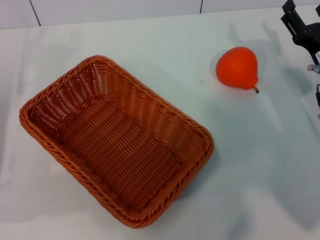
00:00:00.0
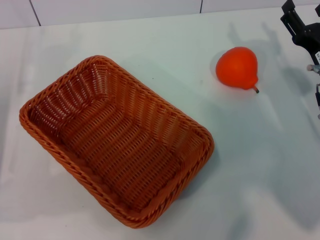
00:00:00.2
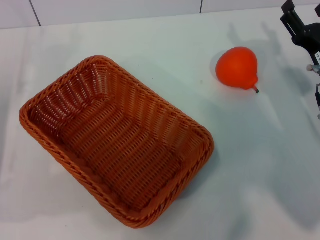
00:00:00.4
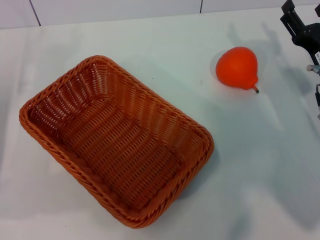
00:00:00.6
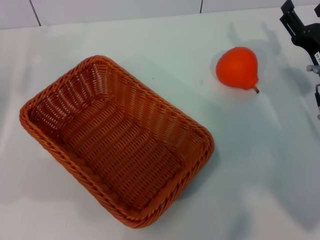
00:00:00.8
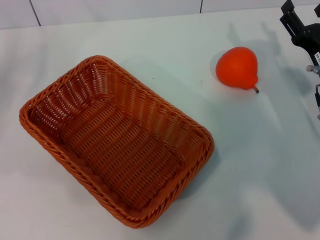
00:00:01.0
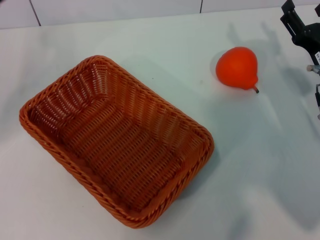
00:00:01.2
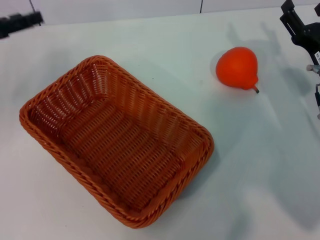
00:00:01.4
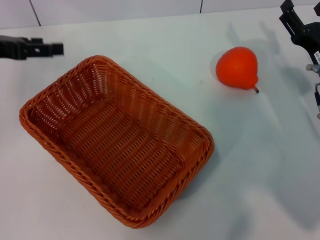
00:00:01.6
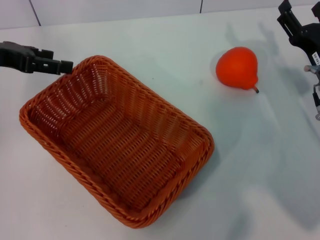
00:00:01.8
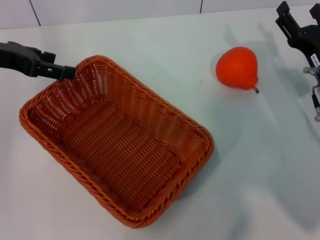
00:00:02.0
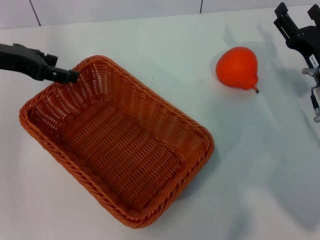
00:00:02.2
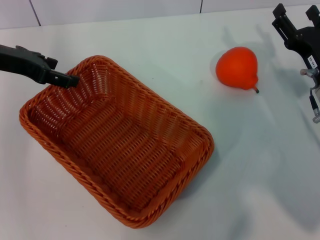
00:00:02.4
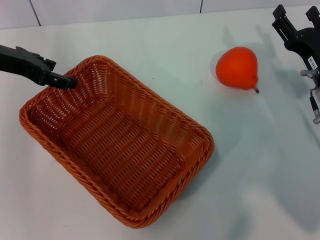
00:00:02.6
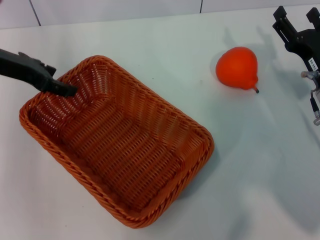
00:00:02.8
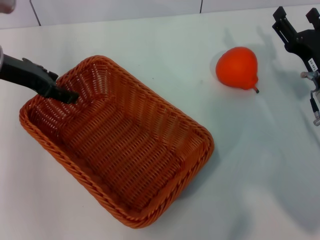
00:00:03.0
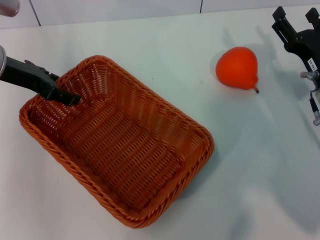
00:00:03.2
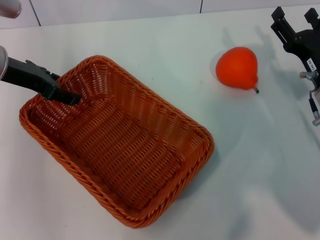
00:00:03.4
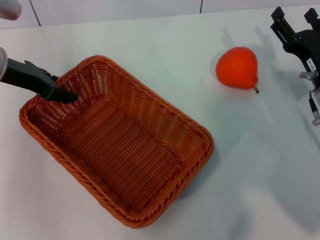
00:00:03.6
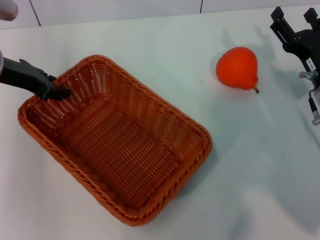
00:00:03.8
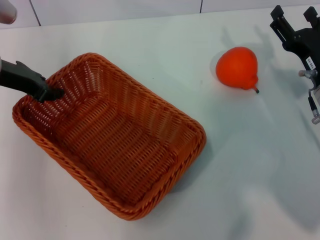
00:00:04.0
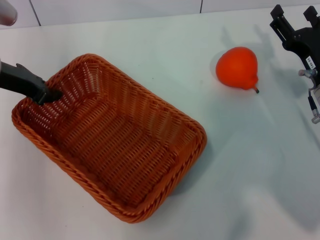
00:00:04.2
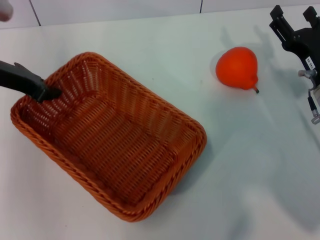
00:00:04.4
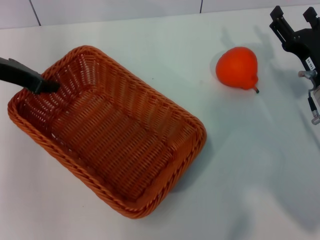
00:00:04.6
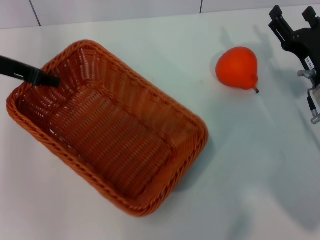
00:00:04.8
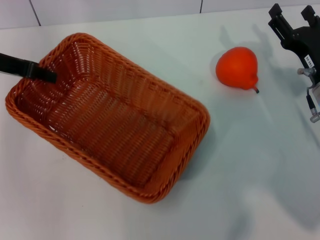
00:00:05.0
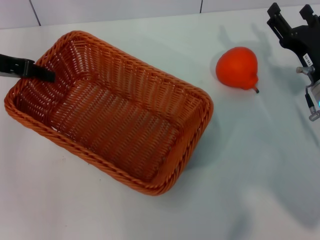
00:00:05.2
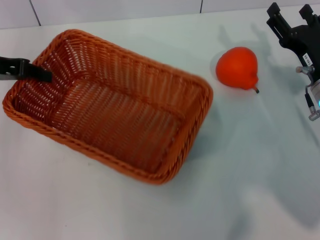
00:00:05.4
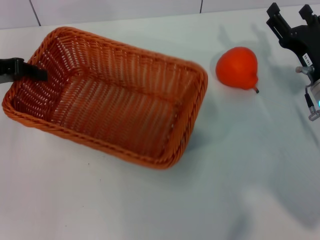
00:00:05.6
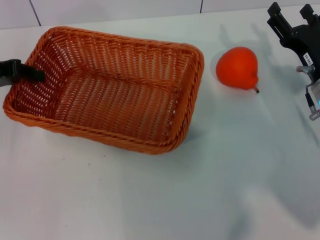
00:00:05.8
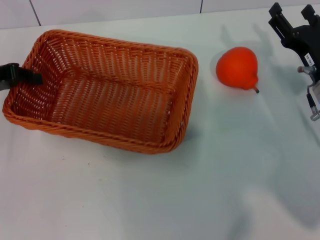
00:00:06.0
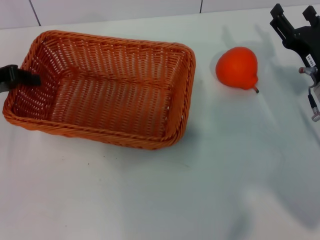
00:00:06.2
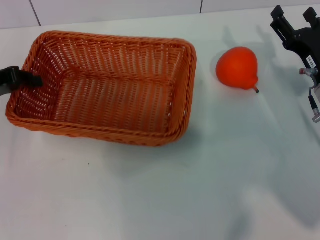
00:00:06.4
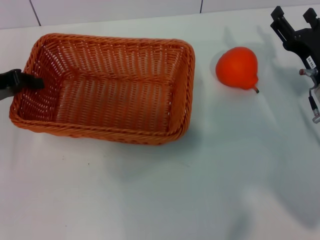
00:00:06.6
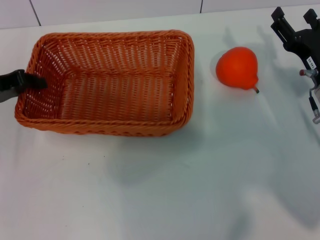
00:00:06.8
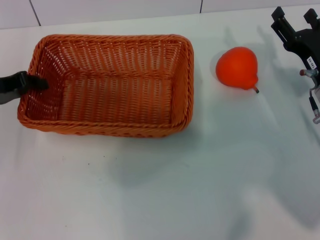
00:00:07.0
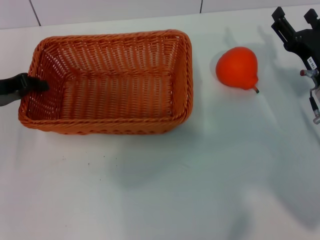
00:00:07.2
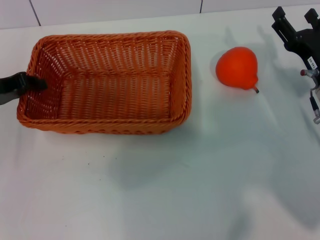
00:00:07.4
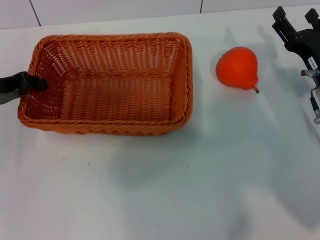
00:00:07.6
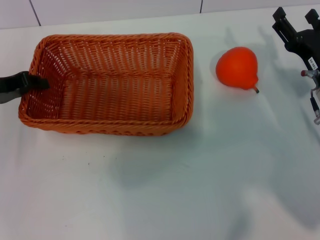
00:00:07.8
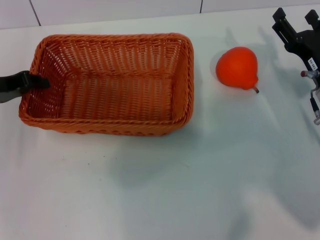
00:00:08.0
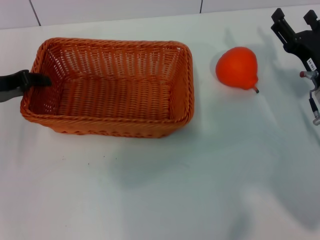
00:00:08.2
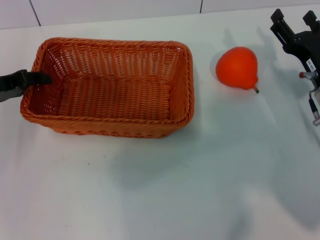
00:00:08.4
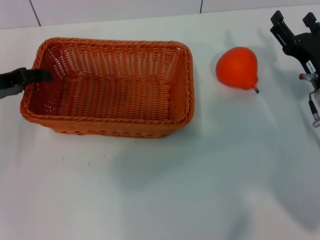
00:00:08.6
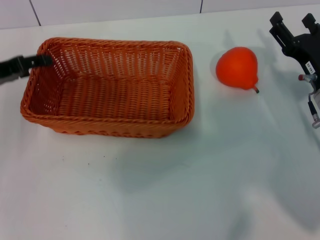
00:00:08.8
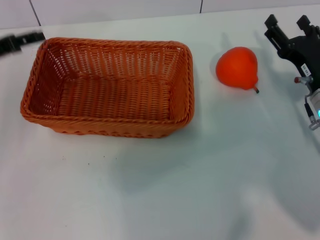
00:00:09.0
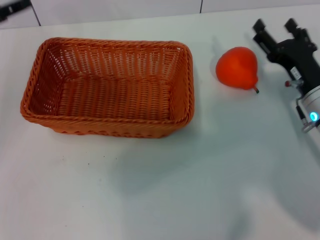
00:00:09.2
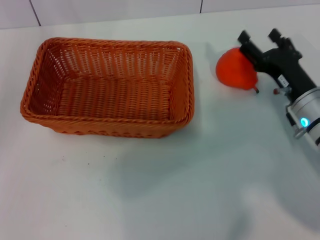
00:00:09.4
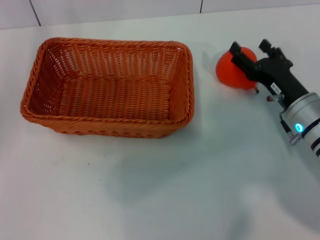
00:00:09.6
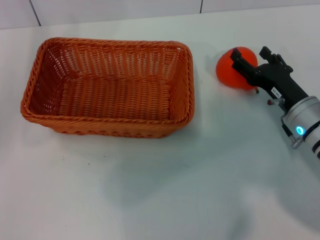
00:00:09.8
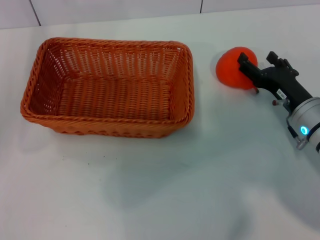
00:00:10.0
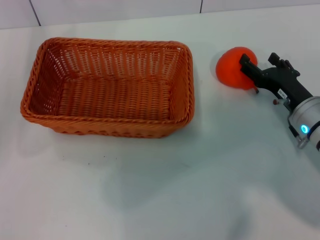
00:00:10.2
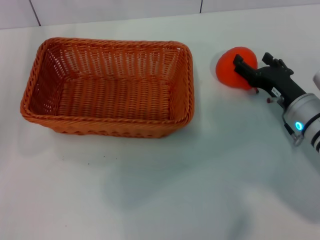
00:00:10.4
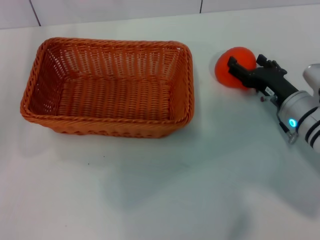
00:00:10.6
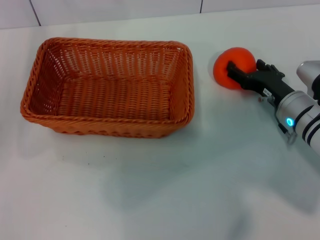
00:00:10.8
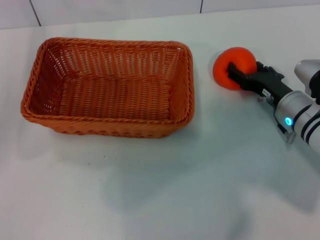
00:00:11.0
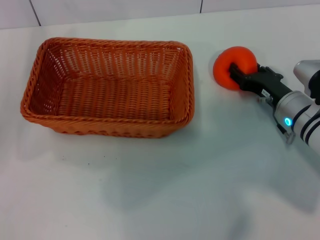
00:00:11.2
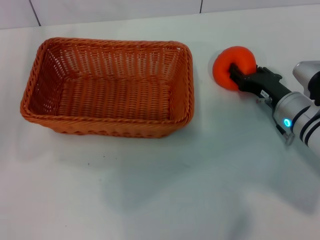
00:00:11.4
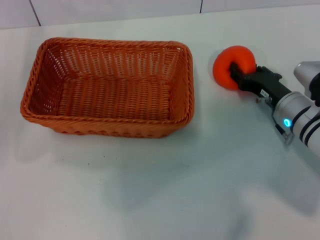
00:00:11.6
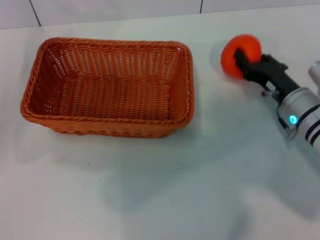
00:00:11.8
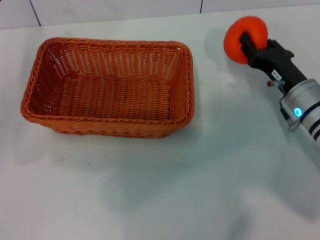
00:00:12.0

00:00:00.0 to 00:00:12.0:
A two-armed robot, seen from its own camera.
Task of the whole recording: the left gripper pick up the yellow basket and place it horizontally in the middle of the table, the right gripper pick up the orange and place it into the yellow basket.
Step, 00:00:00.0 to 00:00:05.2: Pick up the light basket with the left gripper.
Step, 00:00:05.4 to 00:00:08.8: Place the light basket in the center of view with the left gripper.
Step, 00:00:09.2 to 00:00:12.0: Pick up the orange with the right gripper.
00:00:00.0 to 00:00:01.6: The left gripper shifts roughly 15 cm upward and forward.
00:00:01.6 to 00:00:03.0: The left gripper heads to the right, covering approximately 5 cm.
00:00:03.0 to 00:00:04.4: The left gripper closes up.
00:00:04.4 to 00:00:06.0: The left gripper goes roughly 5 cm to the left.
00:00:06.0 to 00:00:07.6: The grippers move only a little.
00:00:07.6 to 00:00:09.0: The left gripper opens.
00:00:10.4 to 00:00:12.0: The right gripper closes up.

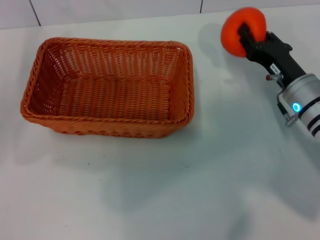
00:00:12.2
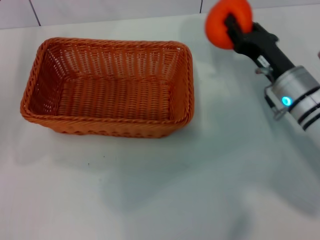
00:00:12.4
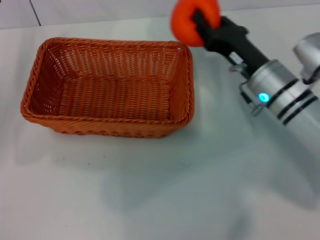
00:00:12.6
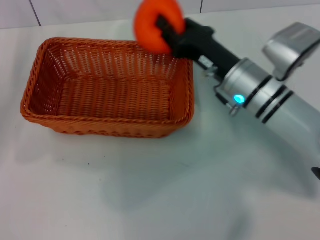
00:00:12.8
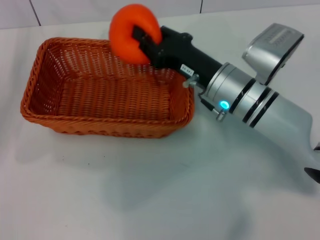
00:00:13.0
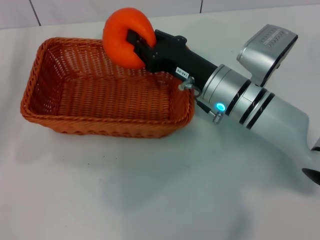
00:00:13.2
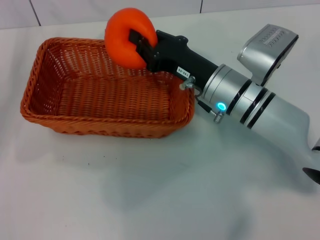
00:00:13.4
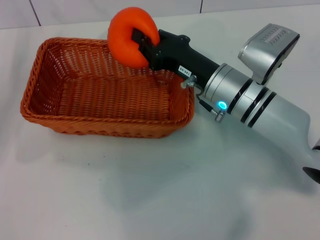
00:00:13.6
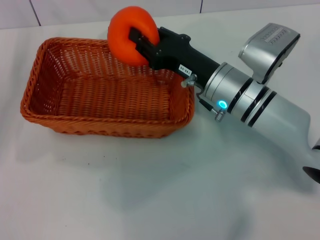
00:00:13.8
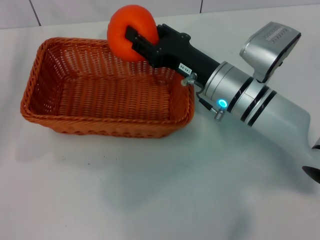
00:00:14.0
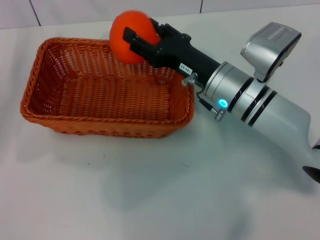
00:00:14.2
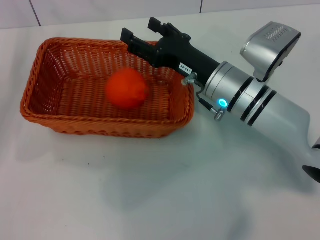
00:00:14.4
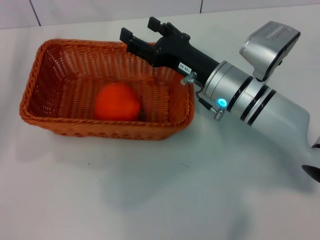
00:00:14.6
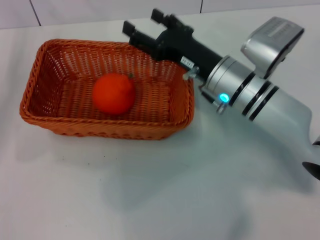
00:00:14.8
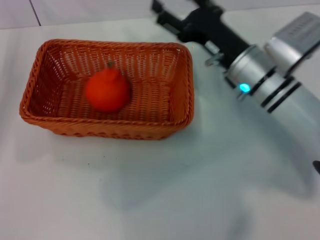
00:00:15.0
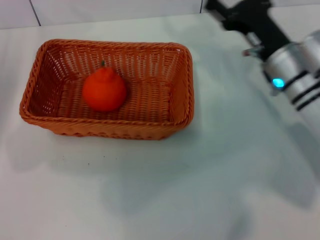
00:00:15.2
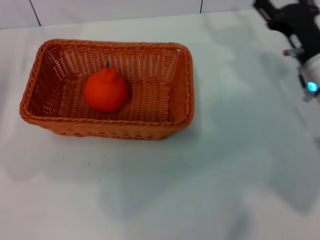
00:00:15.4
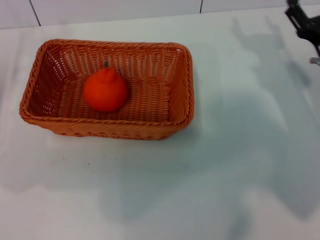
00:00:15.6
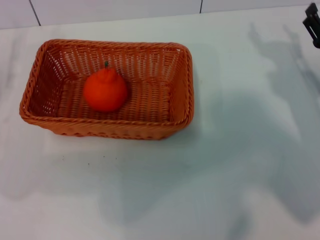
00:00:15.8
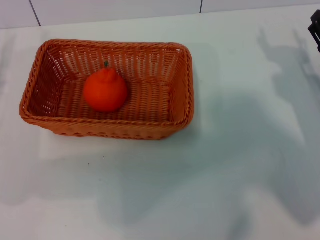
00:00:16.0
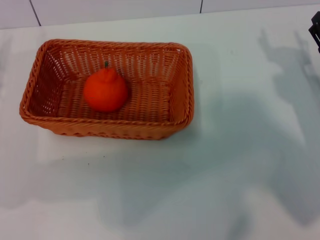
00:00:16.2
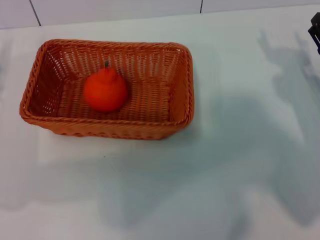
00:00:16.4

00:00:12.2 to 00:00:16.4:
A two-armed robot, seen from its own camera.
Task of the whole recording: the left gripper pick up the yellow basket and place it horizontally in the middle of the table, the right gripper pick up the orange and place it into the yellow basket.
Step, 00:00:12.2 to 00:00:14.8: Place the orange into the light basket with the right gripper.
00:00:12.2 to 00:00:13.6: The right gripper is displaced to the left by about 10 cm.
00:00:13.6 to 00:00:15.0: The right gripper opens up.
00:00:15.0 to 00:00:16.4: The left gripper travels downward by approximately 5 cm. Meanwhile the right gripper travels to the right by about 15 cm.
